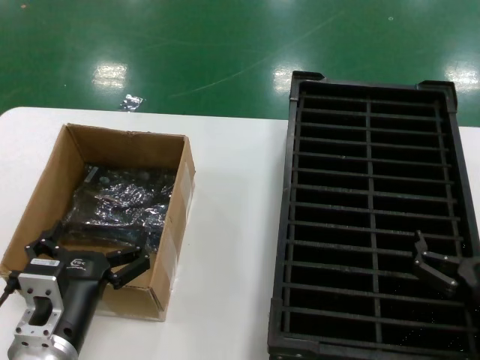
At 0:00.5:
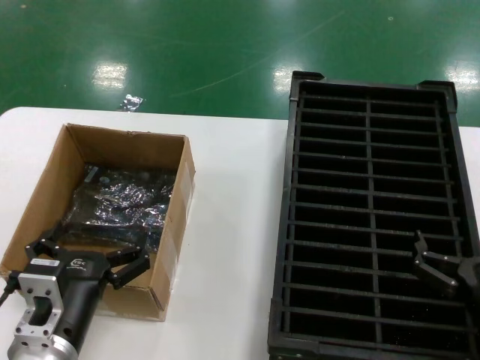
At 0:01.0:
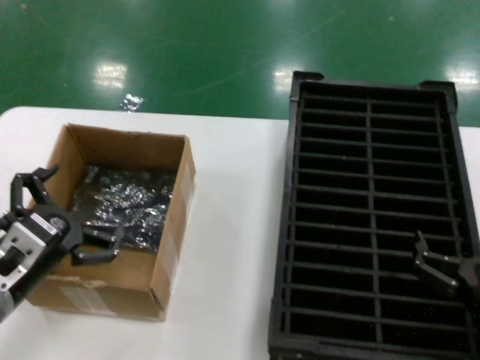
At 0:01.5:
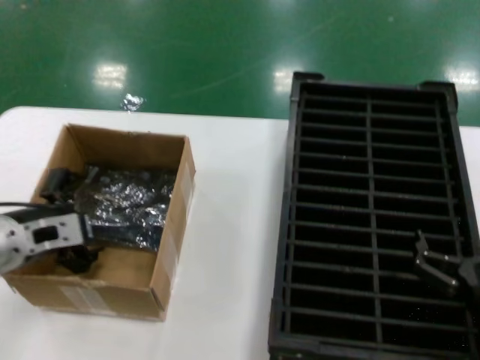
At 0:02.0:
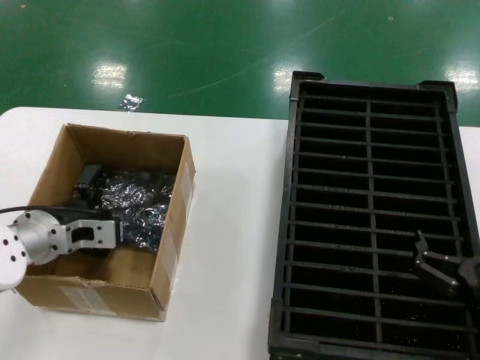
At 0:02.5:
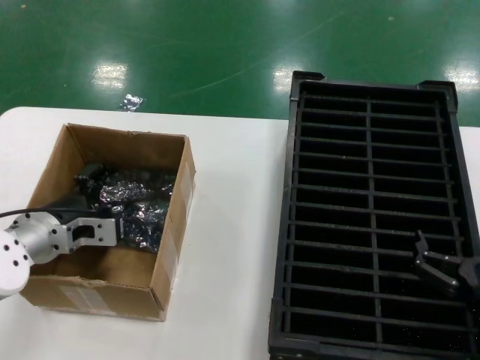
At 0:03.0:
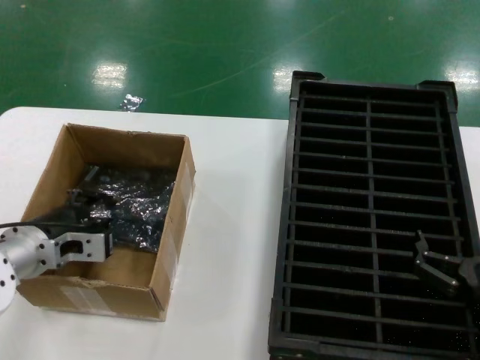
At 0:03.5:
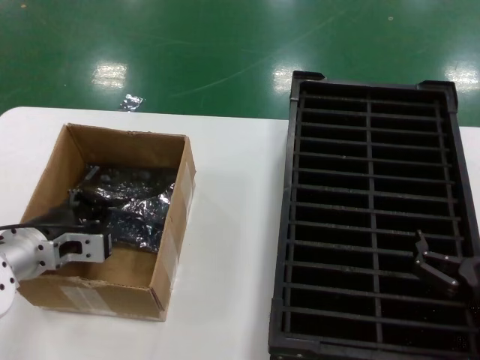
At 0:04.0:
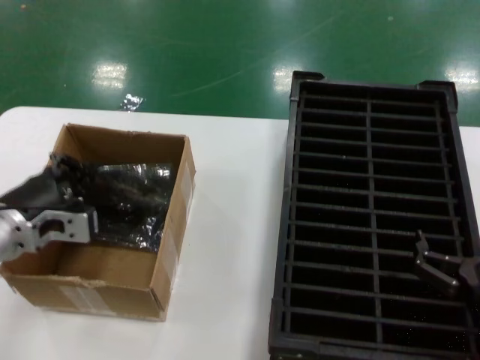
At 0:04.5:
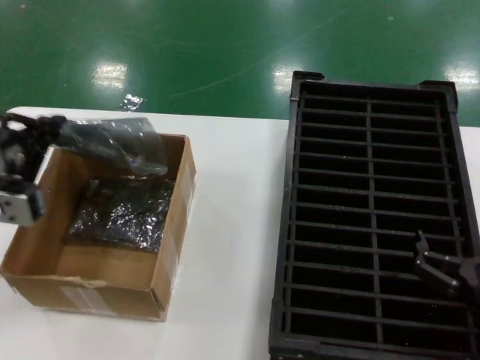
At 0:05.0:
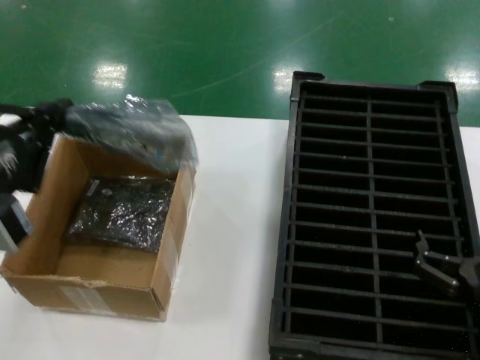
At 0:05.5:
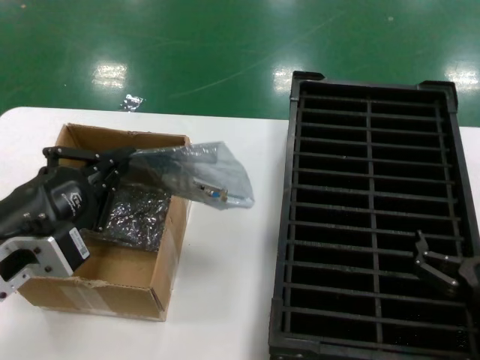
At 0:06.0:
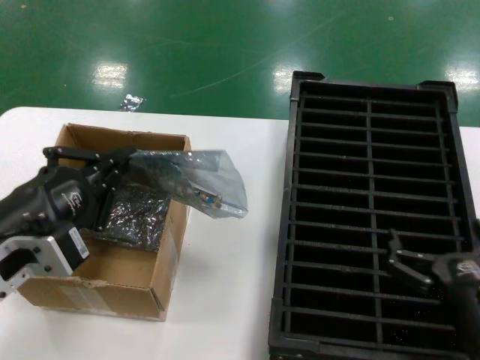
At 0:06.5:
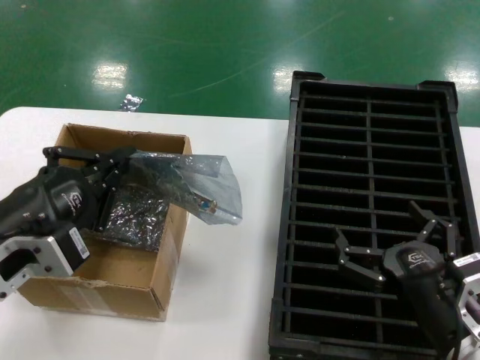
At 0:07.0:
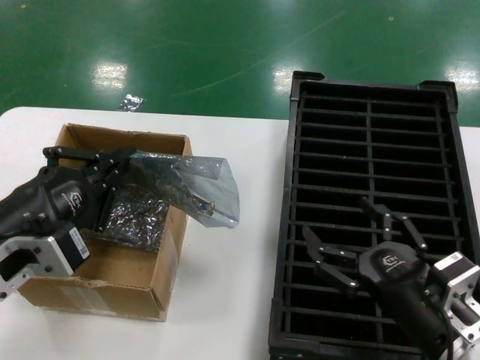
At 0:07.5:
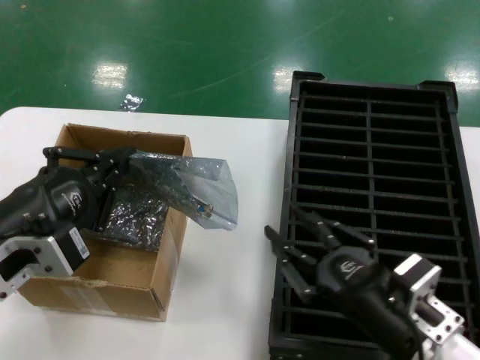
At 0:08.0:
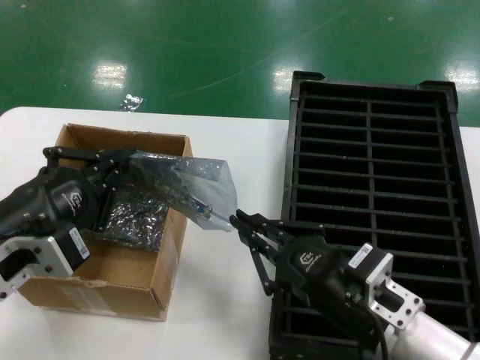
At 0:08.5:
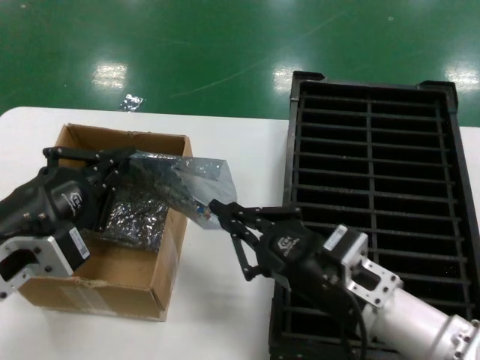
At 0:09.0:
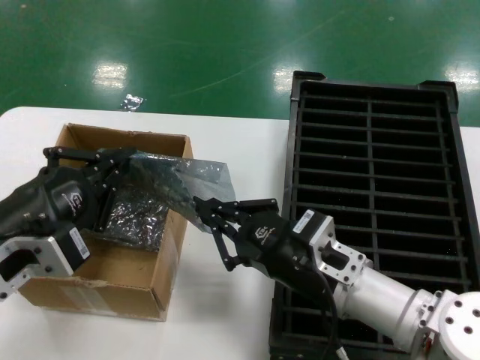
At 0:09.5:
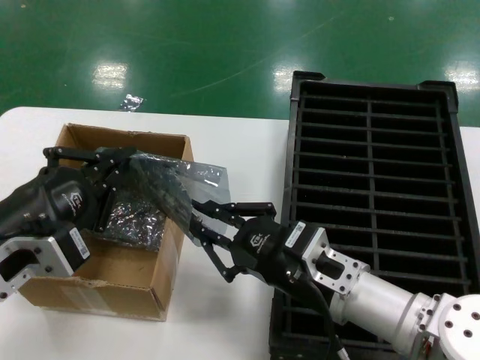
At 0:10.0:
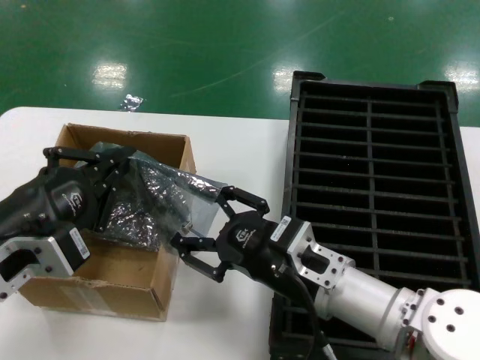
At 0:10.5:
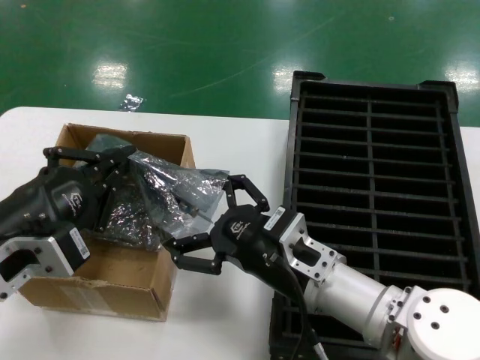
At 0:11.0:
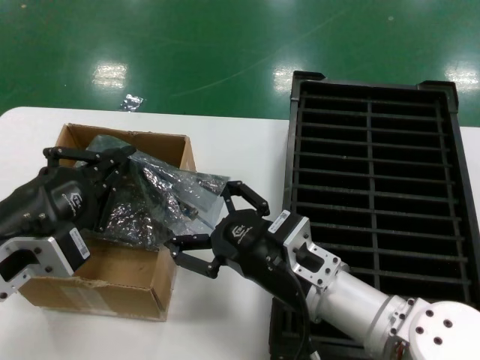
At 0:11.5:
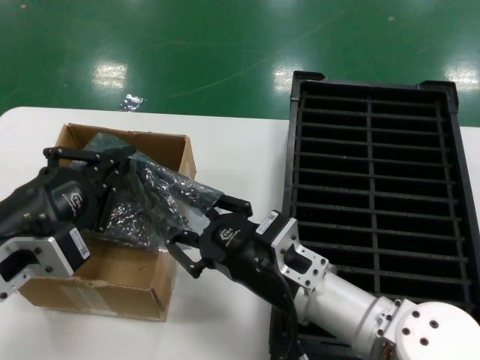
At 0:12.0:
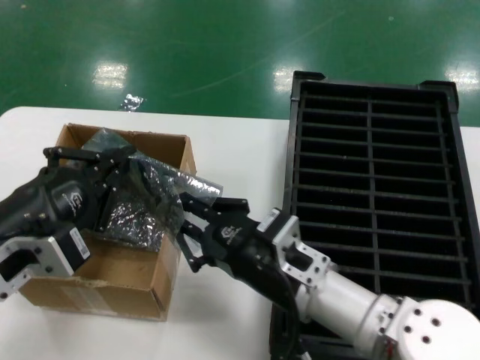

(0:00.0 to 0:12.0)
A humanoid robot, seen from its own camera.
Task of the whole recording: take out graphics card from box remove packaging put into black container.
Step, 0:00.0 - 0:03.0: Grasp the bag.
Step, 0:03.5 - 0:05.5: Lift the bag.
0:00.0 - 0:02.0: The left hand heads forward, to the left and upward, covering roughly 20 cm.
0:02.0 - 0:04.0: The left hand changes place by about 5 cm.
0:04.0 - 0:06.0: The left hand is displaced backward and upward by roughly 15 cm.
0:06.0 - 0:08.0: The right hand is displaced to the left by about 10 cm.
0:08.0 - 0:10.0: The right hand travels to the left and forward by some 10 cm.
0:10.0 - 0:12.0: The hands make only small movements.

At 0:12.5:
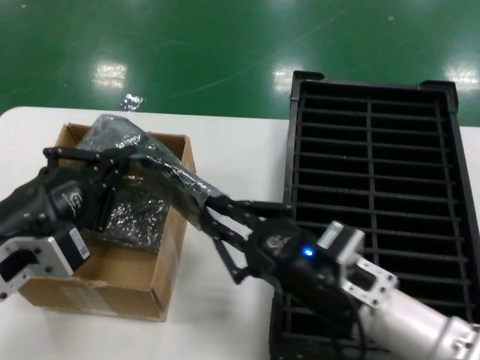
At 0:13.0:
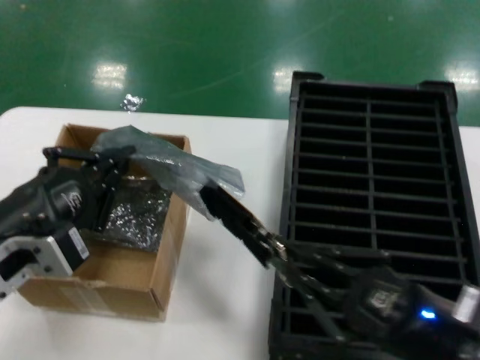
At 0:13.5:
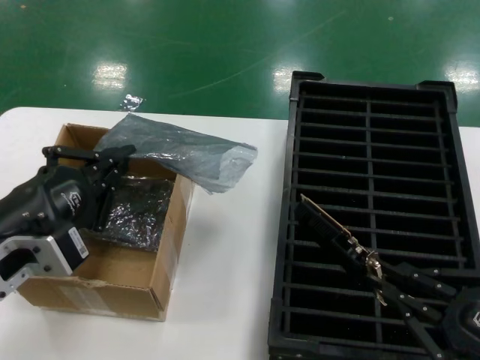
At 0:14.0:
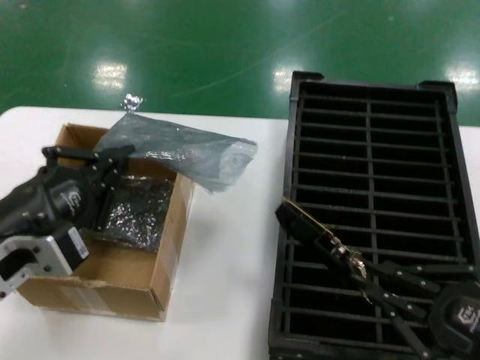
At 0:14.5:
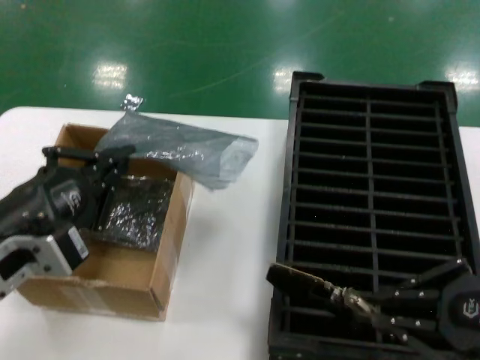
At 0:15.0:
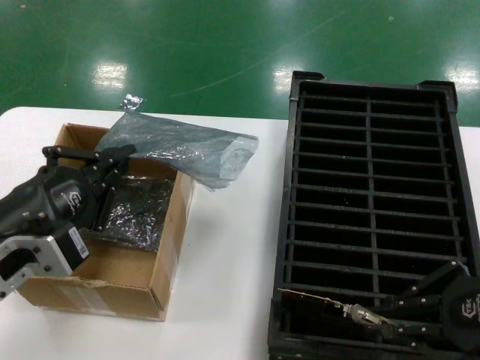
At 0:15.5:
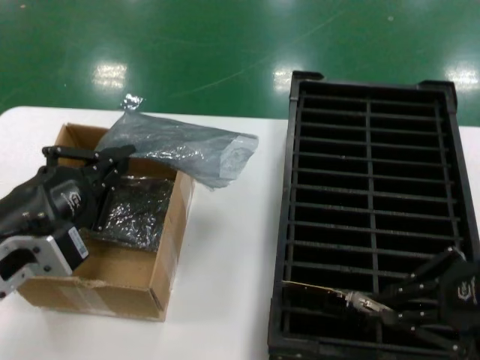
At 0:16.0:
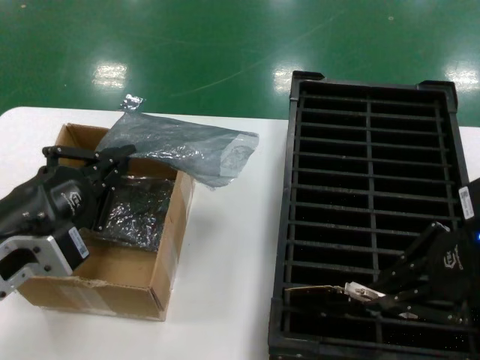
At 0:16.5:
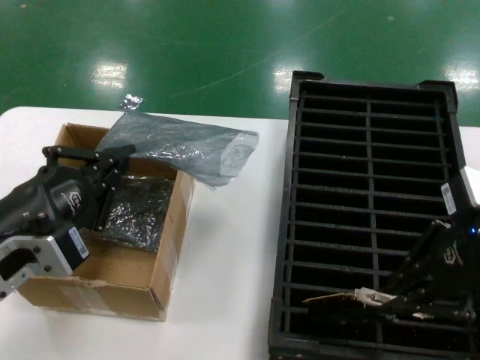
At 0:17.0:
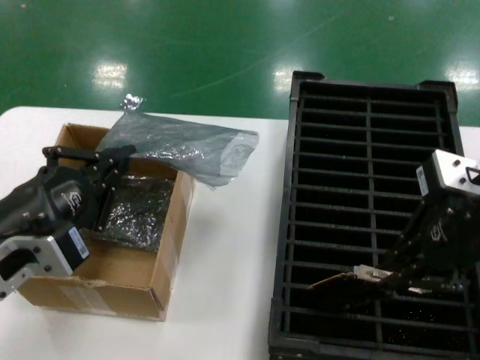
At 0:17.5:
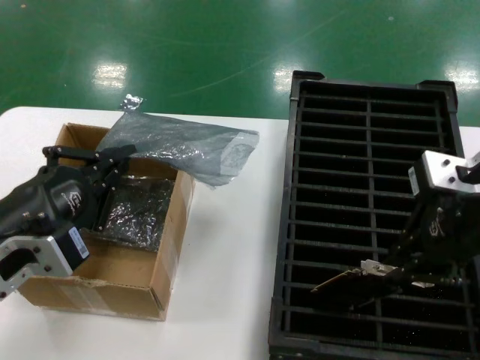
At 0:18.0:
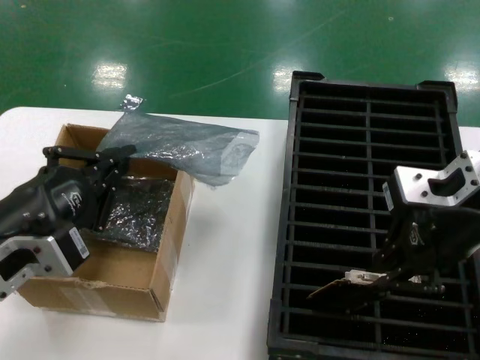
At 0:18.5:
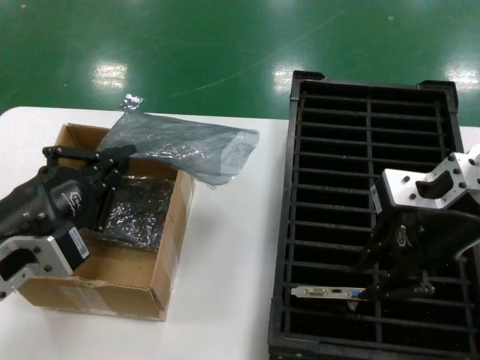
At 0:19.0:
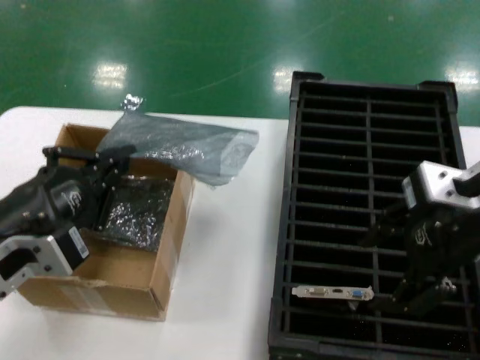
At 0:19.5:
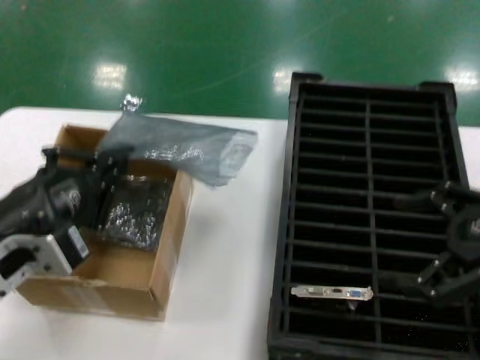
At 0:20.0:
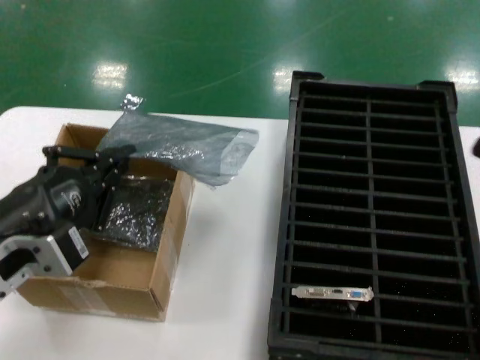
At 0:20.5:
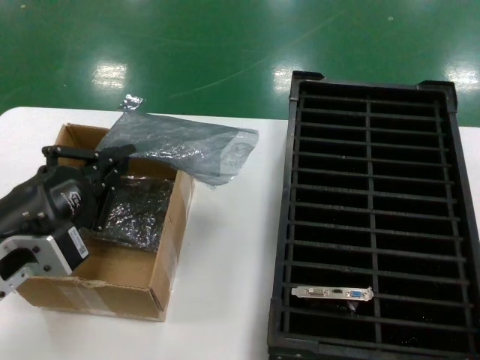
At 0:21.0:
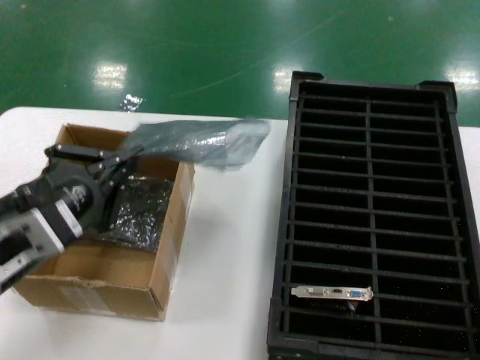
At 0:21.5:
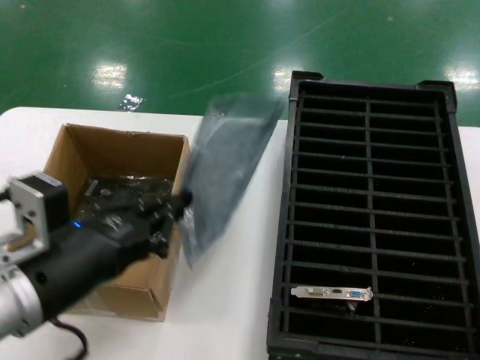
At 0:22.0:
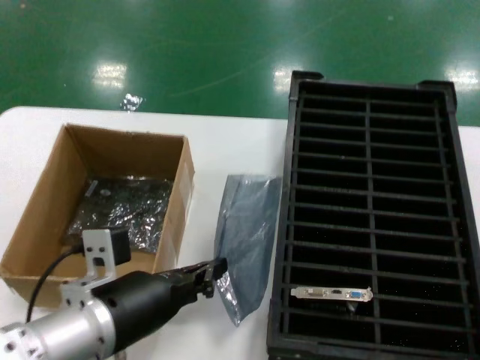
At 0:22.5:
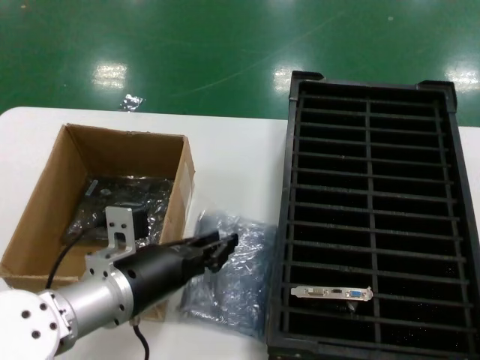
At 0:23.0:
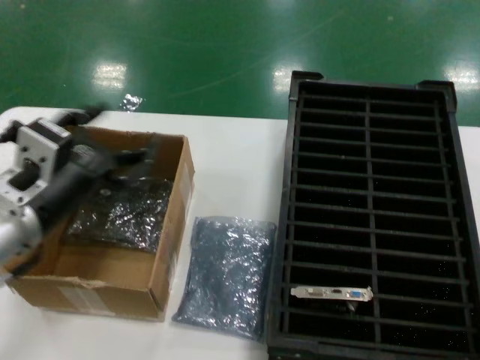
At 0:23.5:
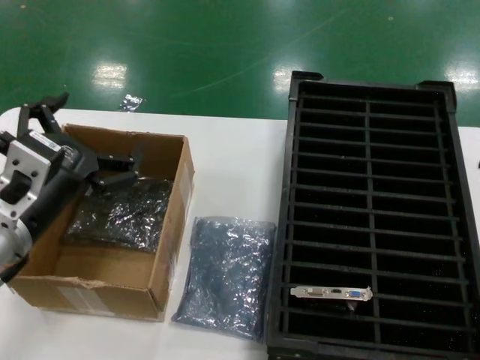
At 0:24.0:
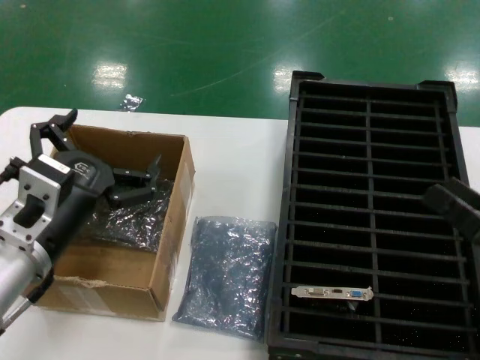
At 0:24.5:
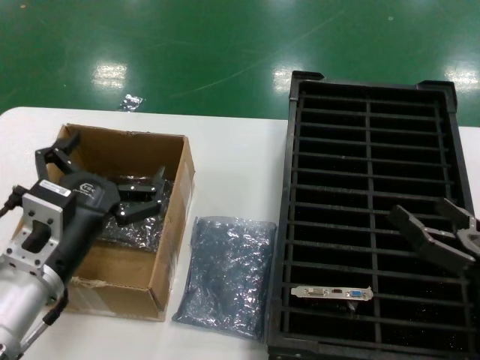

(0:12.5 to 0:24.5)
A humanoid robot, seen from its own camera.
Task of the whole recording: take out graphics card from box remove packaging put into black container.
Step, 0:13.5 - 0:18.5: Place the hard disk in the hard disk enclosure.
Step, 0:19.0 - 0:22.5: Place the down the bag.
0:12.5 - 0:14.5: The right hand is displaced to the right and upward by some 20 cm.
0:14.5 - 0:16.5: The right hand is displaced forward, upward and to the left by roughly 15 cm.
0:16.5 - 0:18.5: The right hand heads to the left, covering roughly 5 cm.
0:18.5 - 0:20.5: The right hand moves to the right and downward, about 30 cm.
0:20.5 - 0:22.5: The left hand moves forward, downward and to the right, roughly 15 cm.
0:22.5 - 0:24.5: The left hand goes upward and returns, approximately 10 cm each way, while the right hand heads to the left and downward, covering approximately 15 cm.

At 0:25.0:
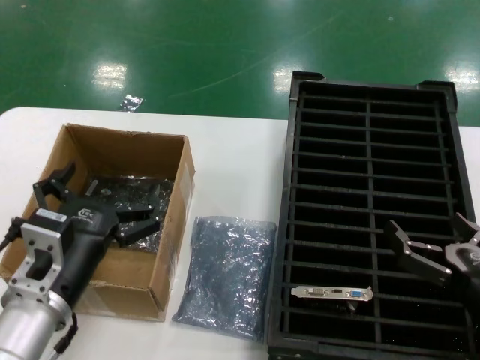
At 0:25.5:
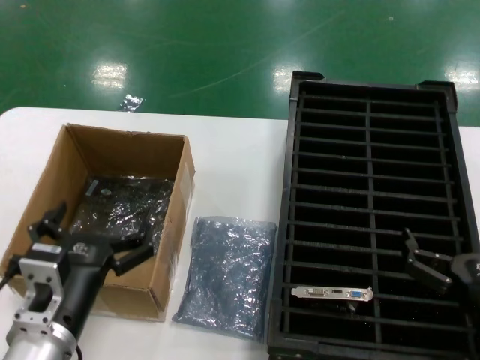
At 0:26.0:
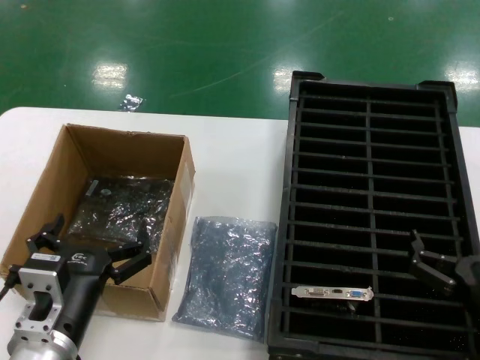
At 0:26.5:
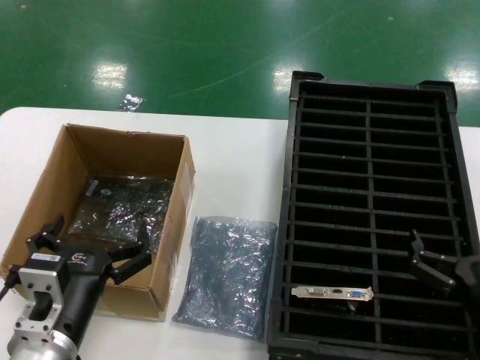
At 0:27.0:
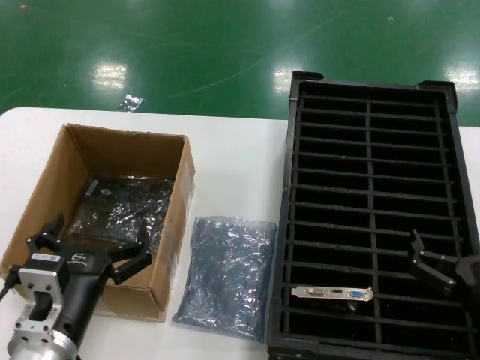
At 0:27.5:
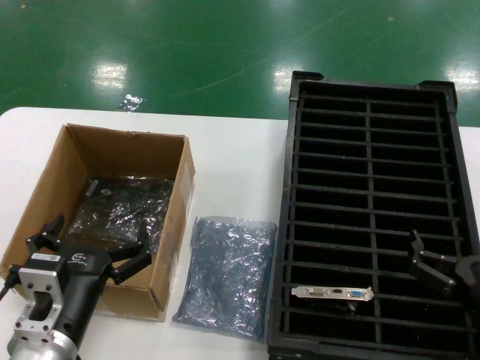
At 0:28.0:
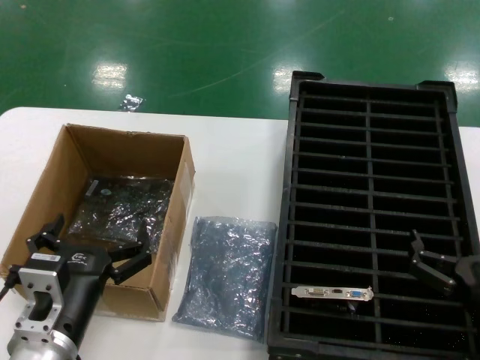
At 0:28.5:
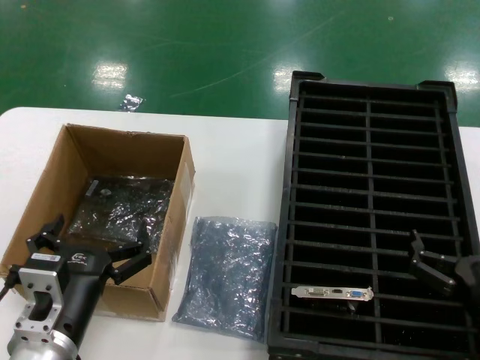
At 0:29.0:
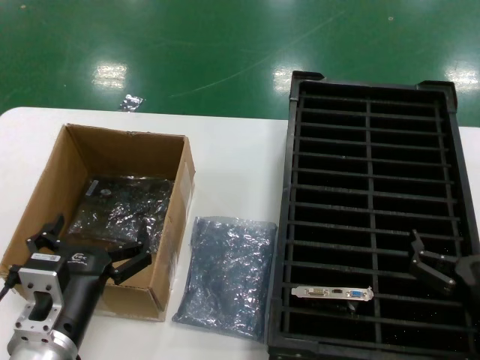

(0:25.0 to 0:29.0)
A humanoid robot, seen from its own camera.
Task of the whole recording: take out graphics card from box remove packaging put into black container.
0:25.0 - 0:27.0: The left hand changes place by some 5 cm.
0:27.0 - 0:29.0: The two hands keep their place.
